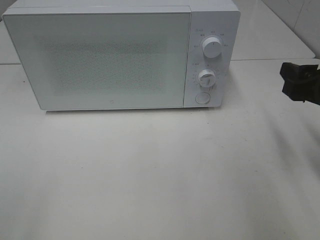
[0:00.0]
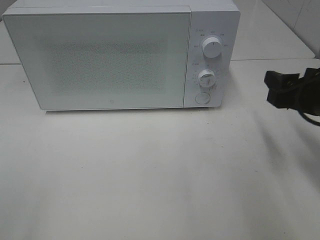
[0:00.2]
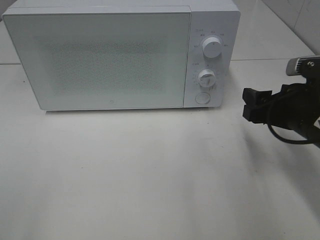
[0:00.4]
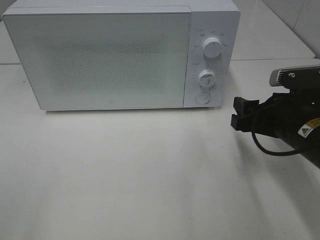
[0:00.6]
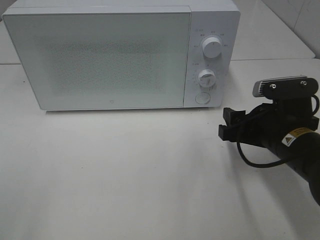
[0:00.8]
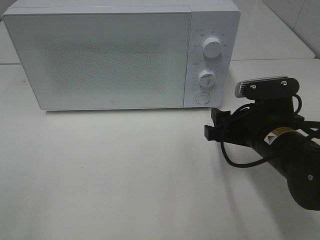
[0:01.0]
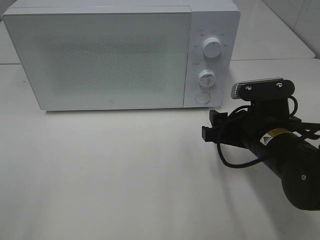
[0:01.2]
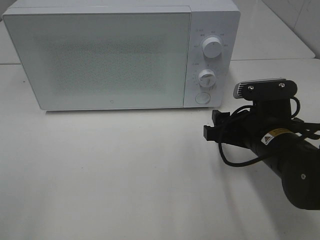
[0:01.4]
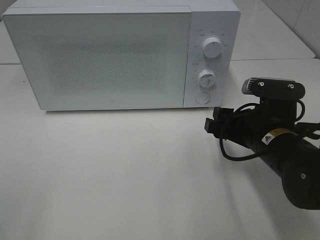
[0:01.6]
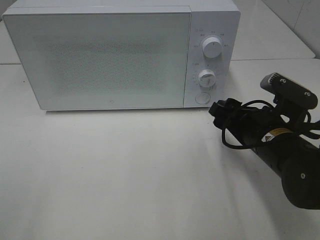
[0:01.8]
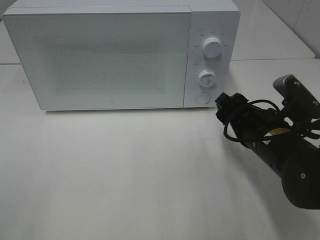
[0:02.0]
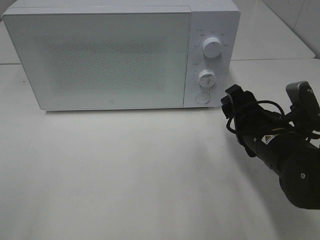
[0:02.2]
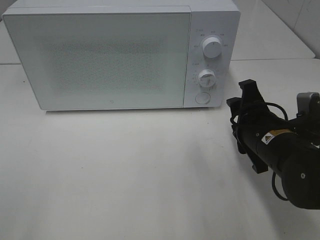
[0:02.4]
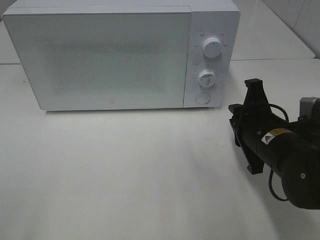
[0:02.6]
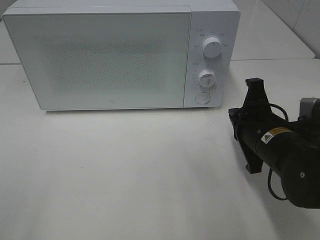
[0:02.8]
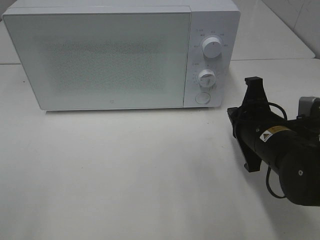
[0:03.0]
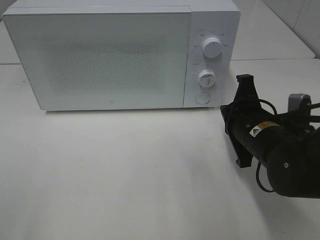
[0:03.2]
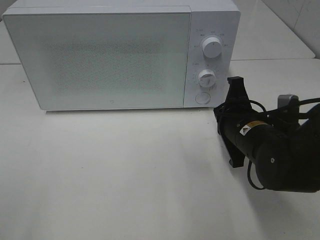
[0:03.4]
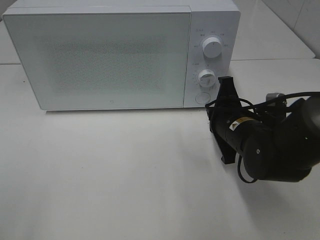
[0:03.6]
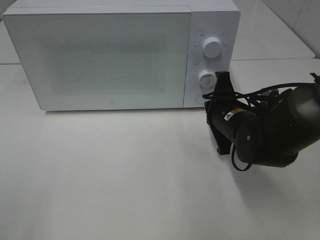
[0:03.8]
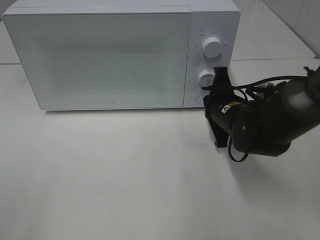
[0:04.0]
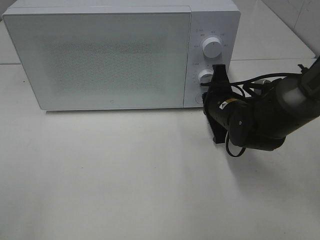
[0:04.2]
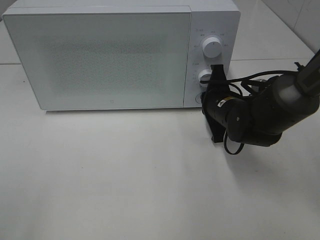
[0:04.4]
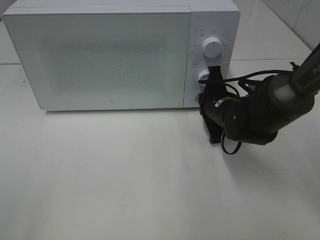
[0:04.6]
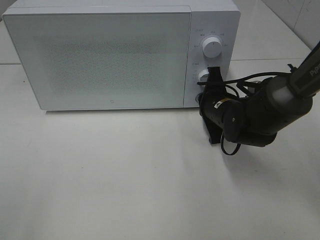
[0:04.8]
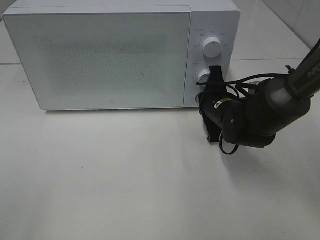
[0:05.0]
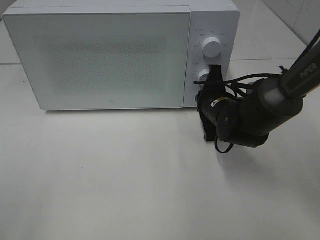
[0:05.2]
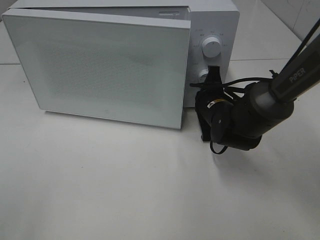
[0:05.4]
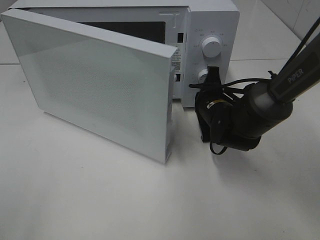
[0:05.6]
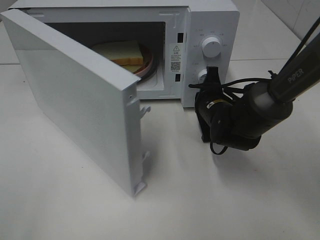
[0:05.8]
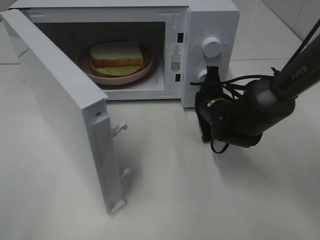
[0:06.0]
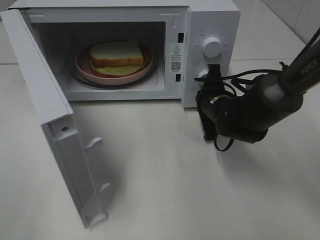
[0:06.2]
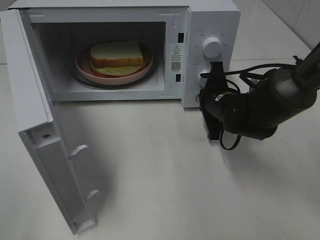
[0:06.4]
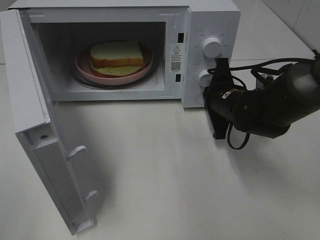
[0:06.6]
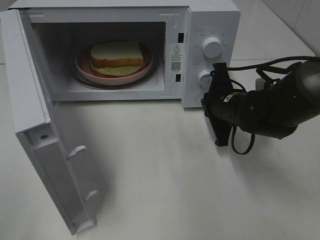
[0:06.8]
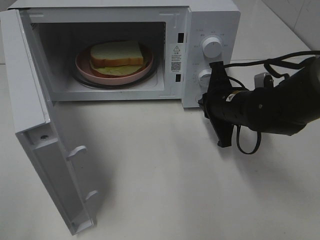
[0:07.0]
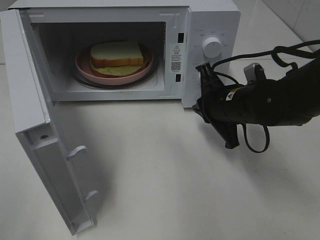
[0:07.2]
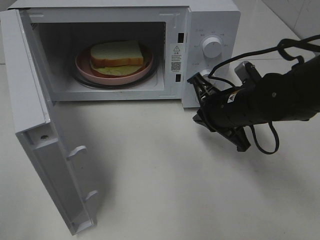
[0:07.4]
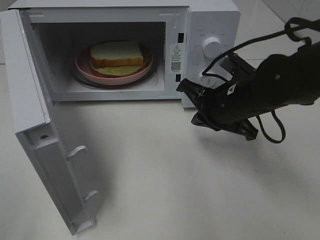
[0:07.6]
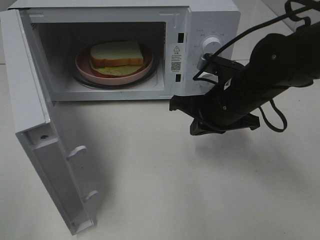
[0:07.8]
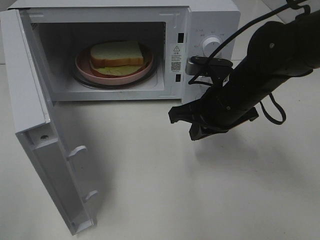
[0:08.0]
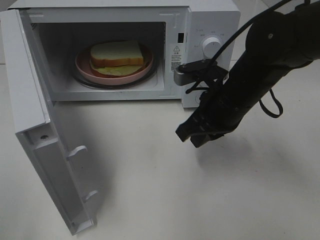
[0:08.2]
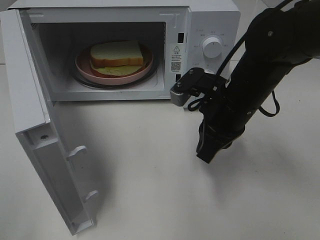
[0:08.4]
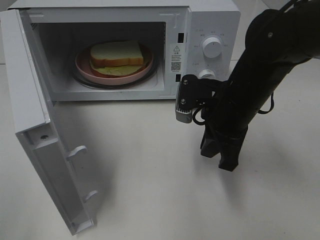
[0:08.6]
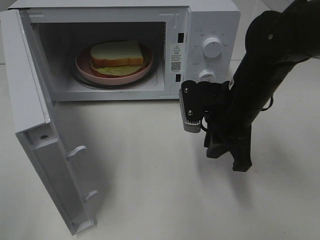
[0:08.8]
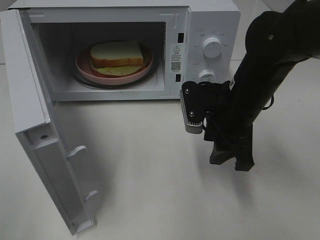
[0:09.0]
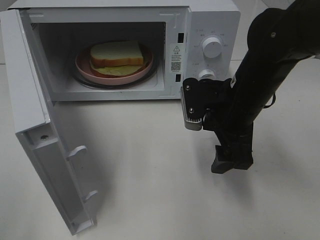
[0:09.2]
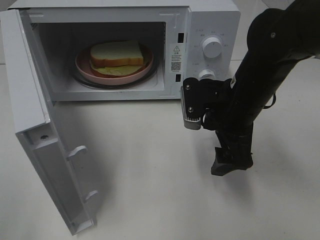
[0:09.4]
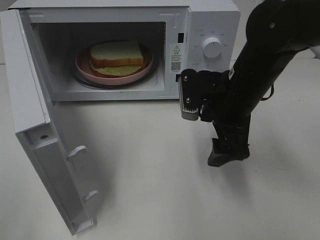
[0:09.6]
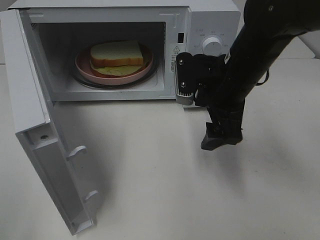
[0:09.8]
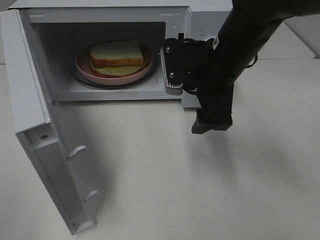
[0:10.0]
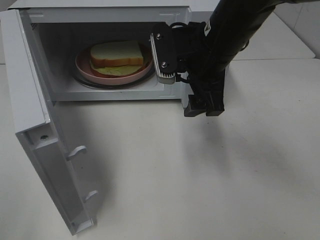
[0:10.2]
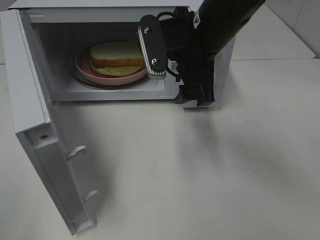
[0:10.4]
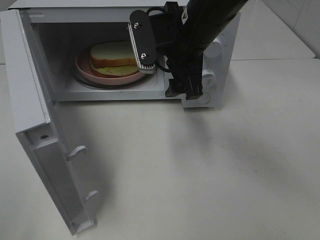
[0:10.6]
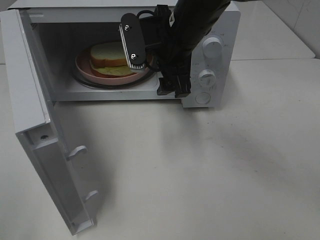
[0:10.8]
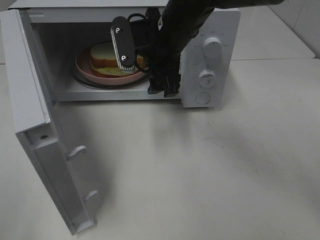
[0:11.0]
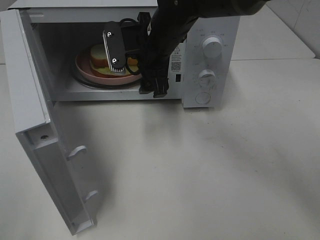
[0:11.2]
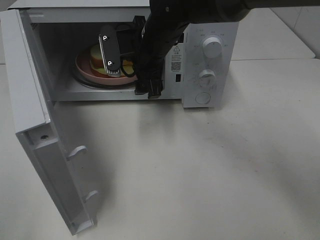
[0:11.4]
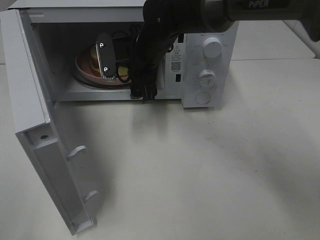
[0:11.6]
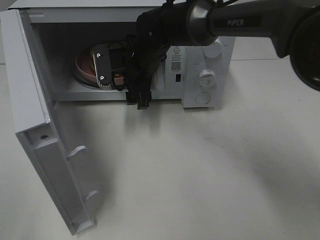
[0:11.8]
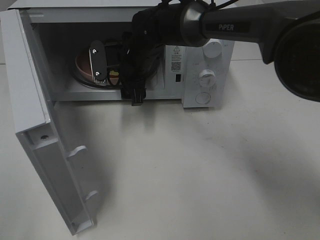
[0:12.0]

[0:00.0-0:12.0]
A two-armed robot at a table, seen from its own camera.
Task of the whole recording: Heat Sandwich.
Step, 0:00.0 to 0:06.8: Right hand: press the switch.
0:00.0 to 0:01.6: The right gripper goes some 10 cm to the left and downward.
0:01.6 to 0:03.0: The right gripper closes.
0:03.0 to 0:04.4: The right gripper shifts roughly 10 cm forward.
0:06.0 to 0:07.6: The right gripper heads upward and backward, covering roughly 10 cm.
0:07.6 to 0:09.0: The right gripper opens.
0:09.0 to 0:10.4: The right gripper is displaced upward and to the left by approximately 10 cm, and opens its fingers.
0:10.4 to 0:12.0: The right gripper goes some 20 cm forward, downward and to the left.

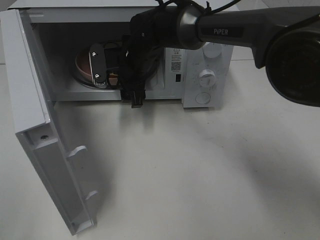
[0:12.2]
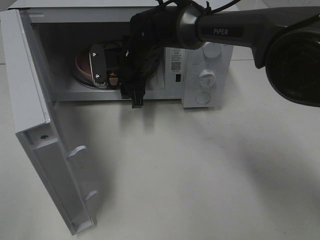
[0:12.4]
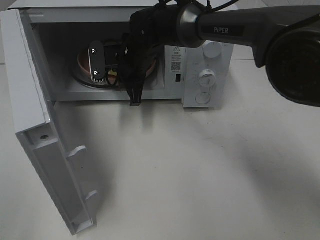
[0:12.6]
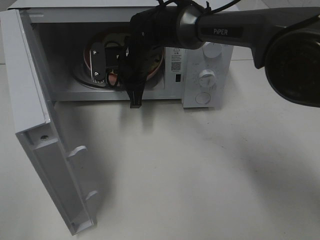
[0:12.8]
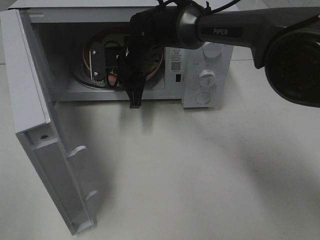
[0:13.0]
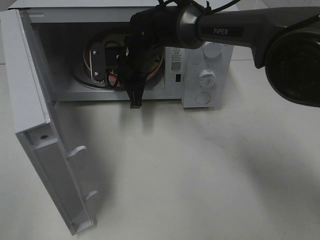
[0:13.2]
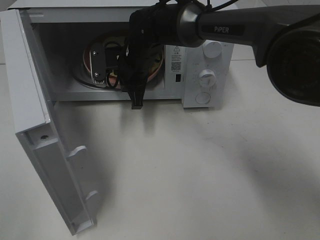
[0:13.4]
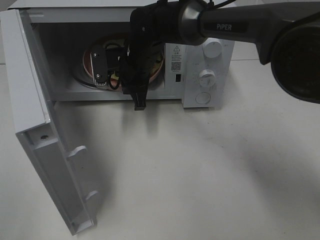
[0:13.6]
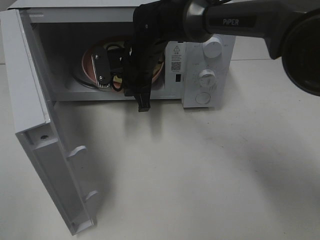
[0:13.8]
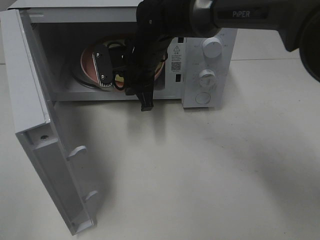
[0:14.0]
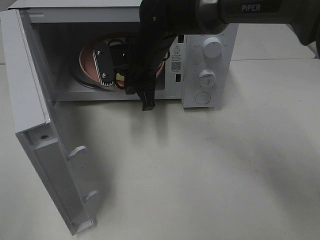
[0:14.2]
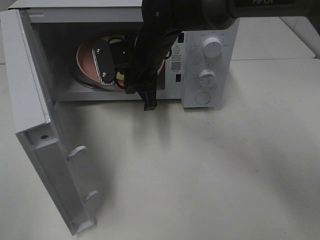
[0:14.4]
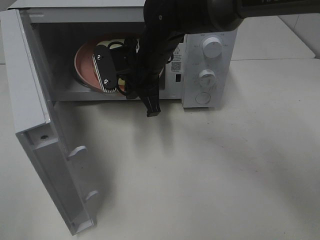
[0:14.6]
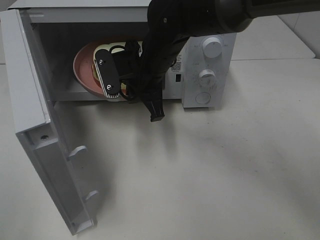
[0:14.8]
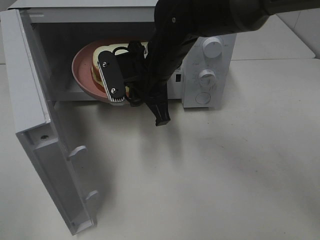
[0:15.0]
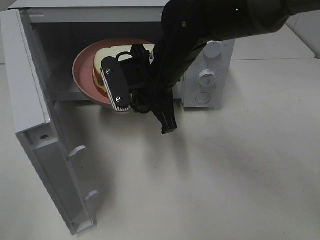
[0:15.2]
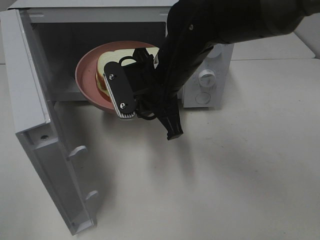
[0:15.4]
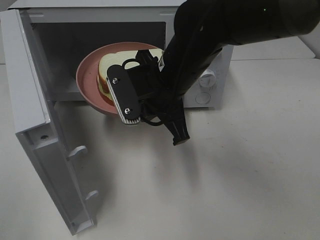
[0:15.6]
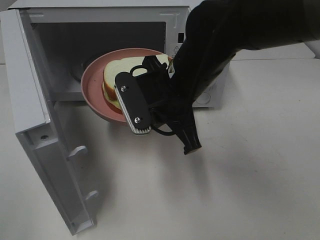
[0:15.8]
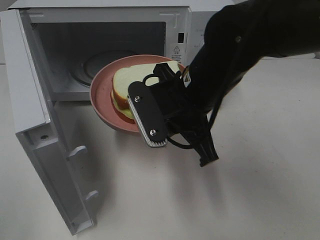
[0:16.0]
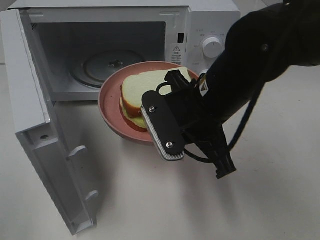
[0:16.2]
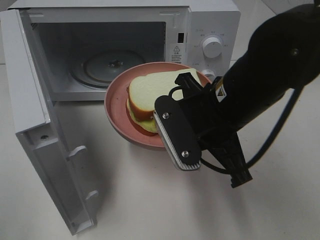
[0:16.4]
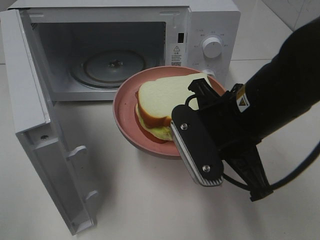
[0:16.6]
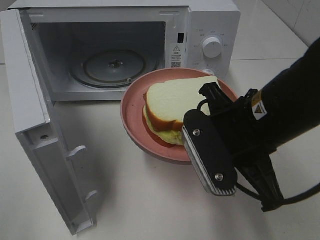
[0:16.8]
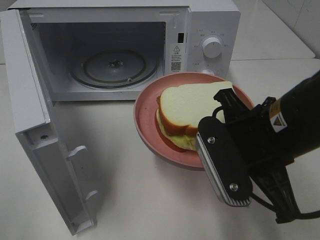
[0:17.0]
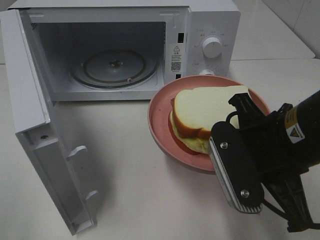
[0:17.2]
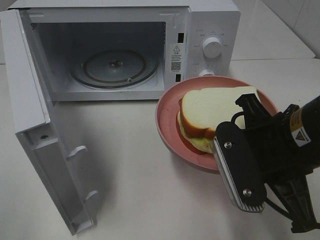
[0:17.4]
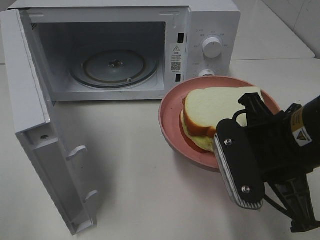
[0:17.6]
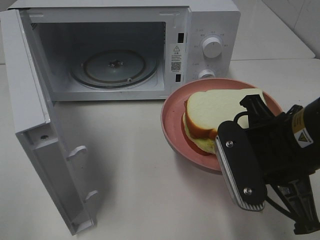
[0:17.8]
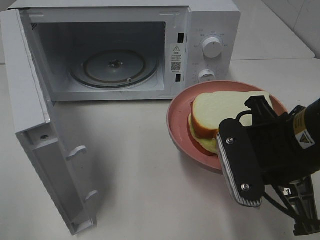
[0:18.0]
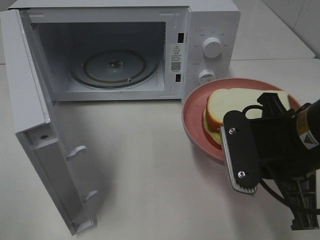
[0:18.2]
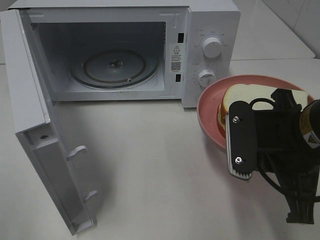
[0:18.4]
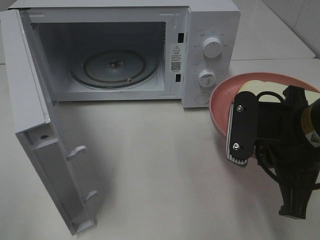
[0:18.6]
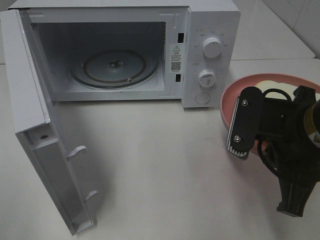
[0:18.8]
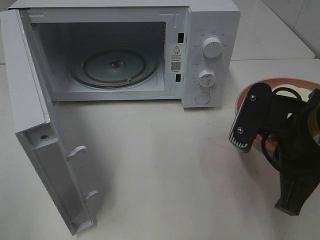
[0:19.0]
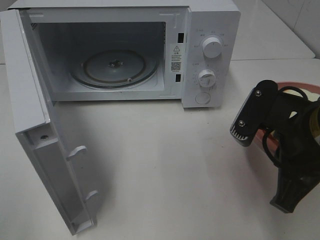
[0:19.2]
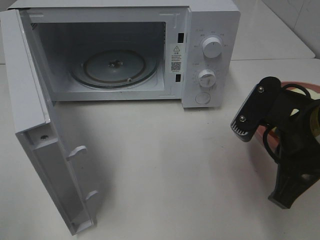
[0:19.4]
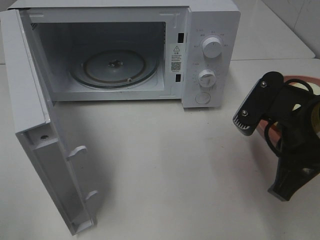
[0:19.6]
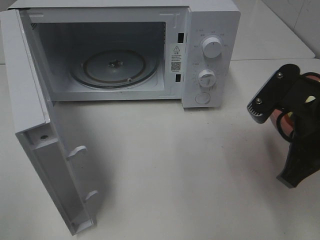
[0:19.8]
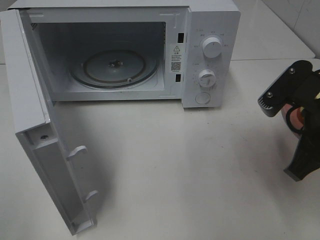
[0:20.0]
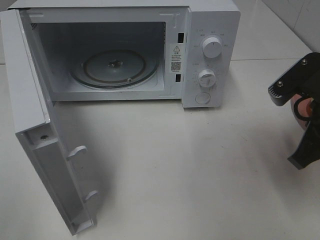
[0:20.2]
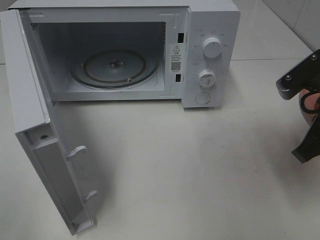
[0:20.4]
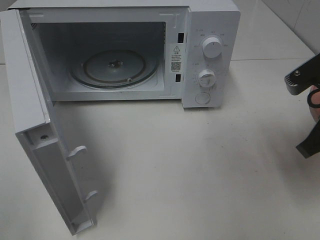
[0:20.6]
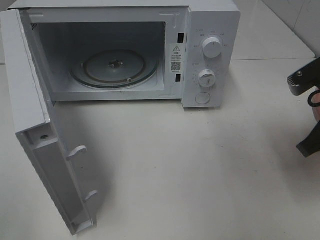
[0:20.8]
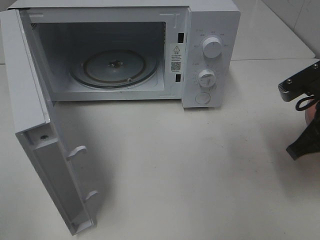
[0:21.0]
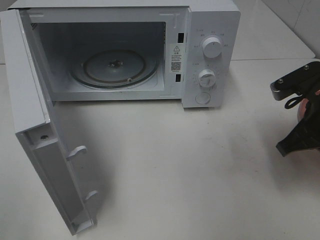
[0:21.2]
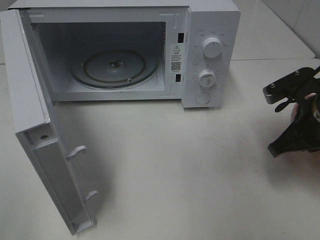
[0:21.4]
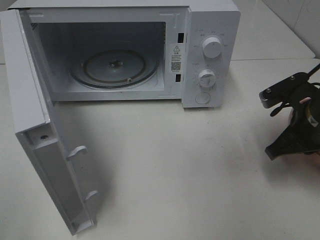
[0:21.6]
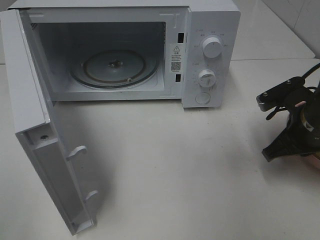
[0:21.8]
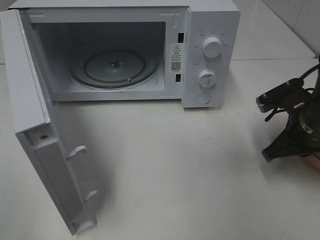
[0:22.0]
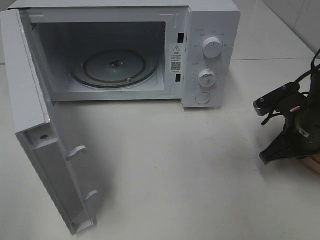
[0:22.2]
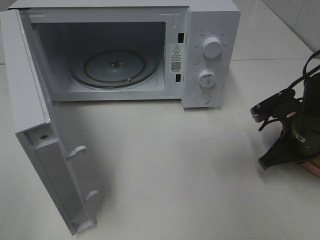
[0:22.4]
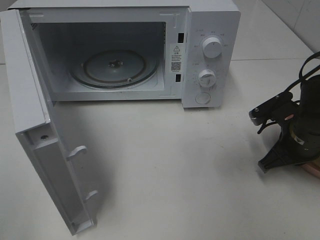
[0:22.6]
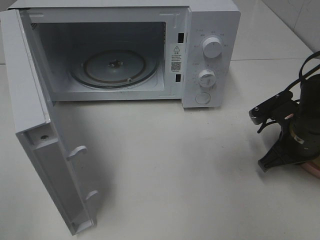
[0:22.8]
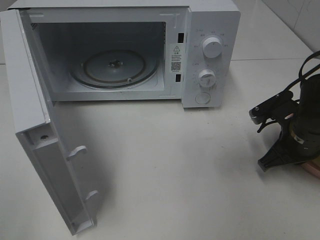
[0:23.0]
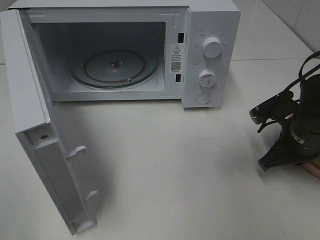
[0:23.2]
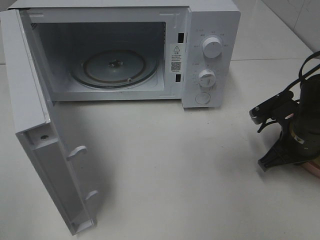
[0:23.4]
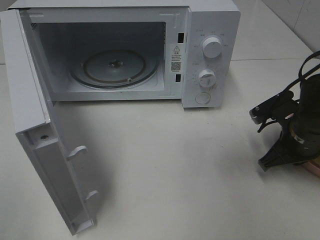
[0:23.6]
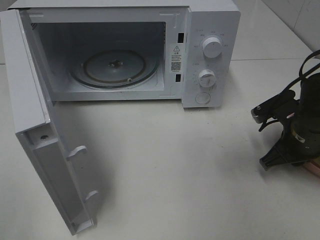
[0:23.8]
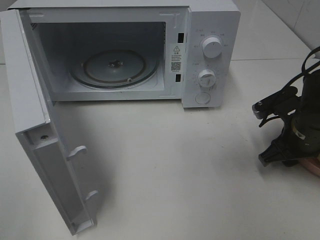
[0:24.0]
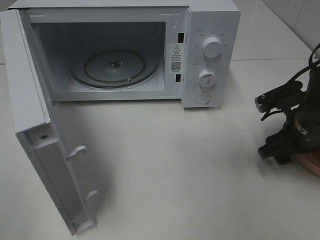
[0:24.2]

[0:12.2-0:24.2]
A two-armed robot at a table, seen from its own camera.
Task of the whole recording: Heat Sandwich.
0:12.2 to 0:13.8: The right gripper closes its fingers.
0:13.8 to 0:15.2: The right gripper goes approximately 10 cm backward.
0:15.2 to 0:16.6: The right gripper heads backward and to the right, covering approximately 15 cm.
0:16.6 to 0:18.2: The right gripper goes approximately 5 cm to the right.
0:19.8 to 0:21.2: The right gripper moves forward, some 5 cm.
0:21.2 to 0:22.6: The right gripper is displaced downward by roughly 10 cm.
0:22.6 to 0:24.2: The right gripper opens its fingers.
